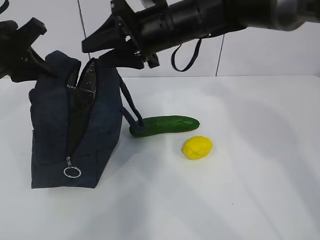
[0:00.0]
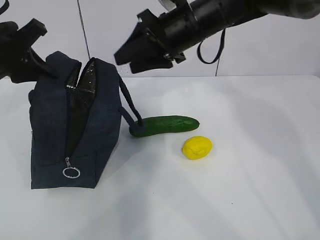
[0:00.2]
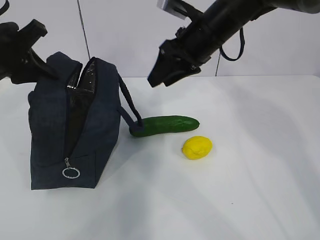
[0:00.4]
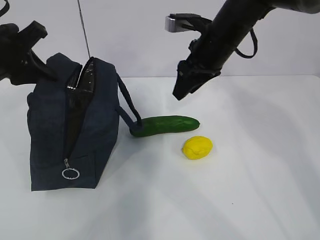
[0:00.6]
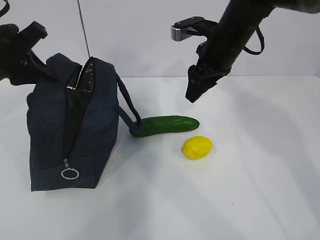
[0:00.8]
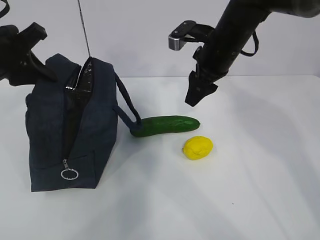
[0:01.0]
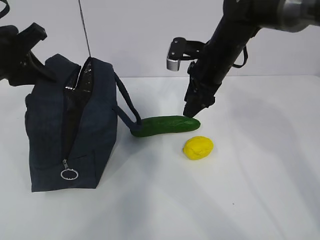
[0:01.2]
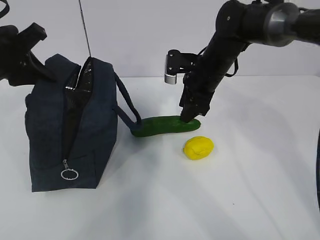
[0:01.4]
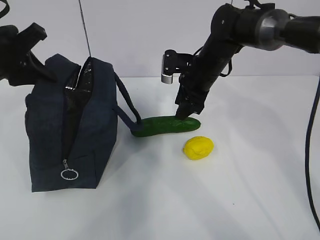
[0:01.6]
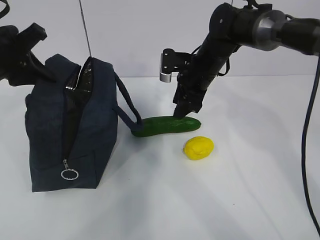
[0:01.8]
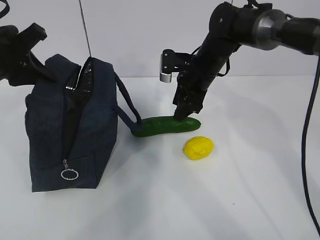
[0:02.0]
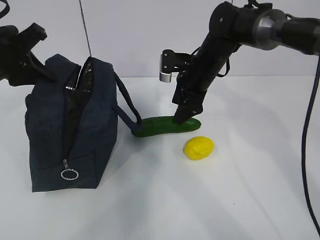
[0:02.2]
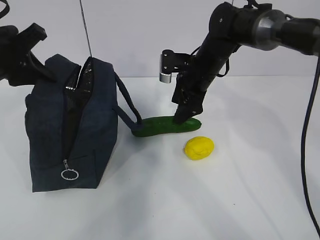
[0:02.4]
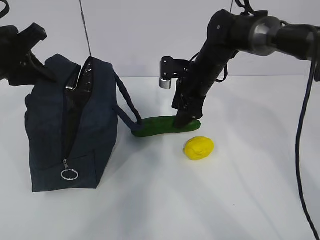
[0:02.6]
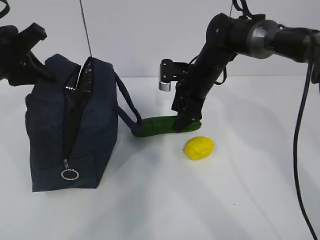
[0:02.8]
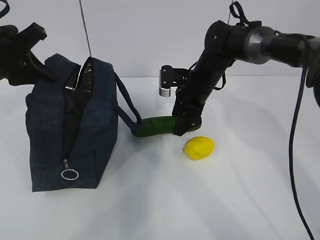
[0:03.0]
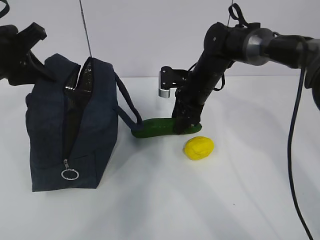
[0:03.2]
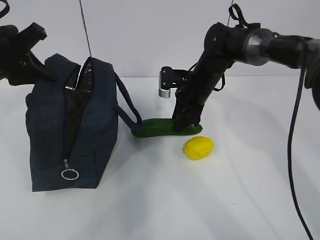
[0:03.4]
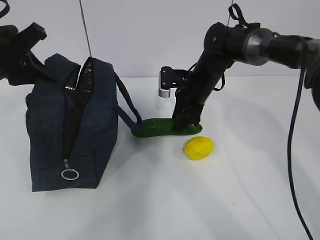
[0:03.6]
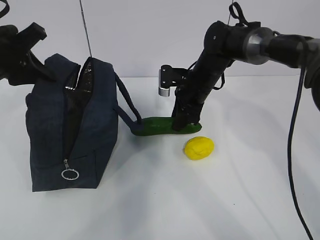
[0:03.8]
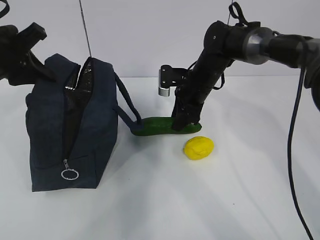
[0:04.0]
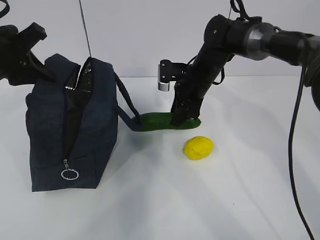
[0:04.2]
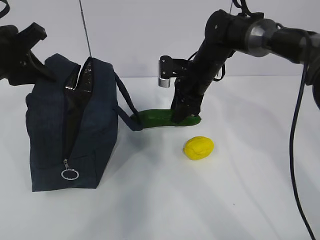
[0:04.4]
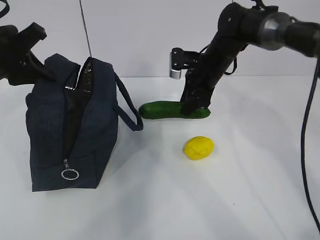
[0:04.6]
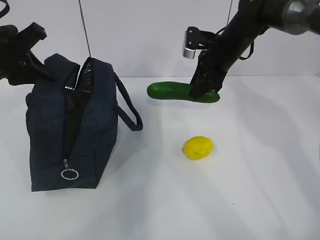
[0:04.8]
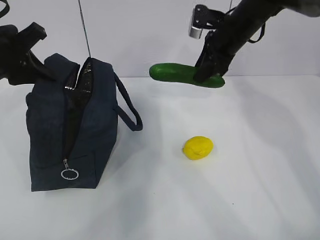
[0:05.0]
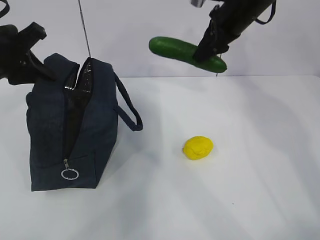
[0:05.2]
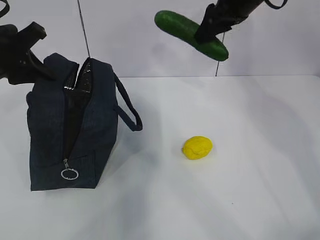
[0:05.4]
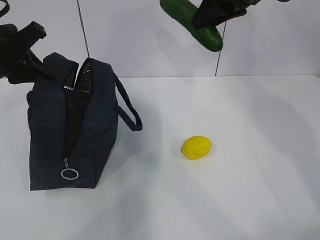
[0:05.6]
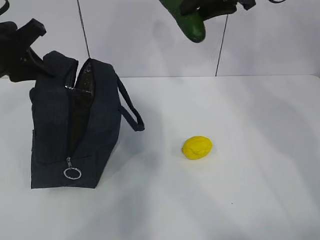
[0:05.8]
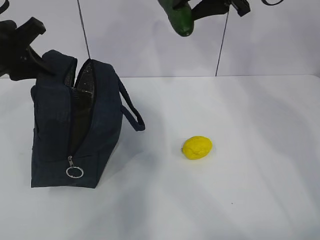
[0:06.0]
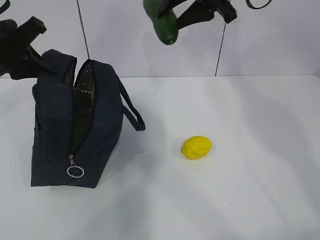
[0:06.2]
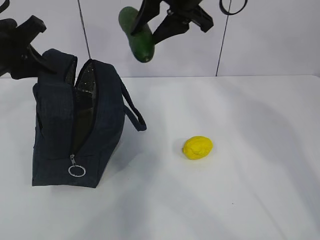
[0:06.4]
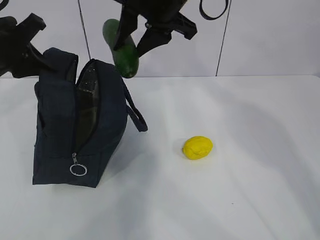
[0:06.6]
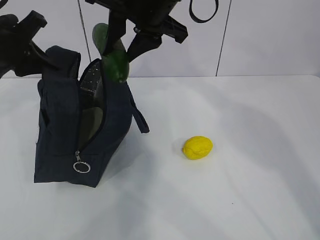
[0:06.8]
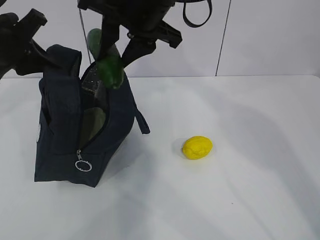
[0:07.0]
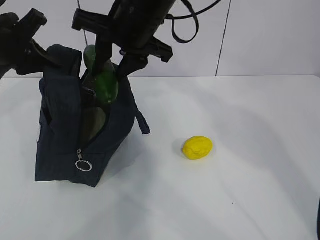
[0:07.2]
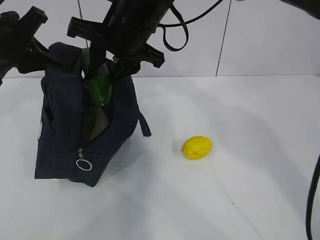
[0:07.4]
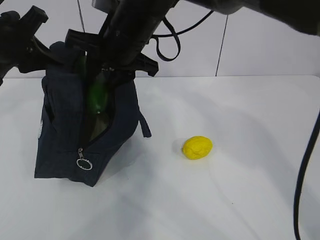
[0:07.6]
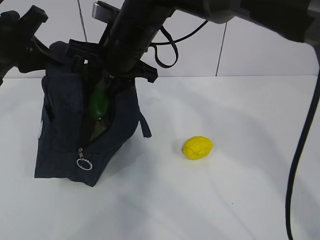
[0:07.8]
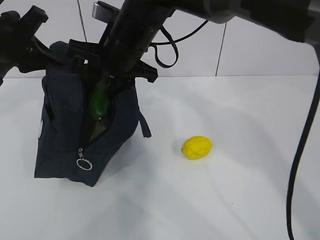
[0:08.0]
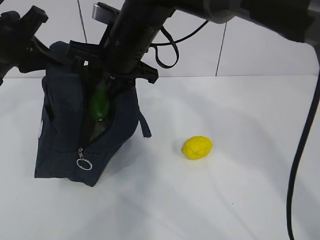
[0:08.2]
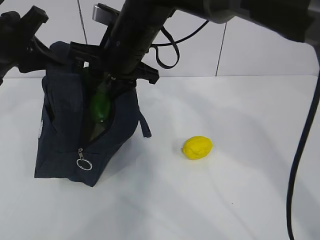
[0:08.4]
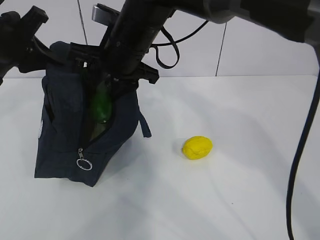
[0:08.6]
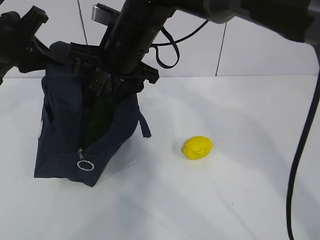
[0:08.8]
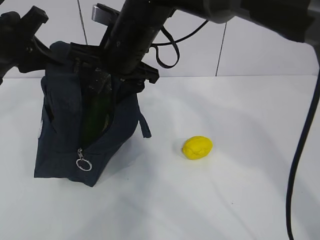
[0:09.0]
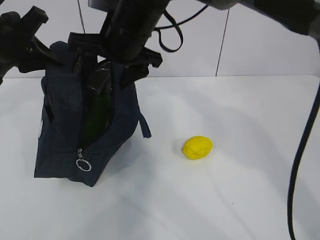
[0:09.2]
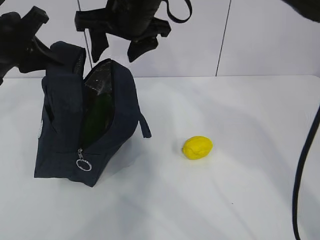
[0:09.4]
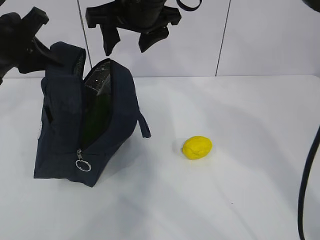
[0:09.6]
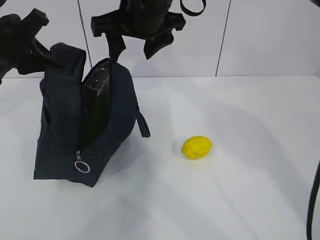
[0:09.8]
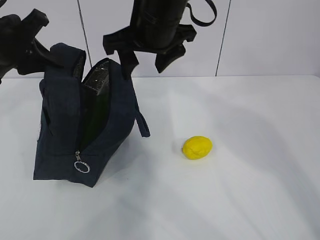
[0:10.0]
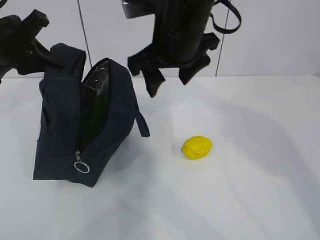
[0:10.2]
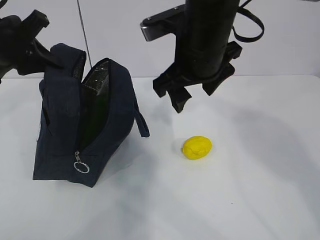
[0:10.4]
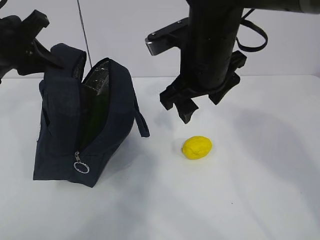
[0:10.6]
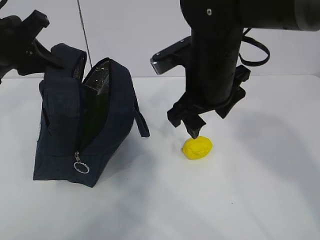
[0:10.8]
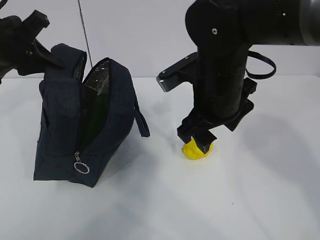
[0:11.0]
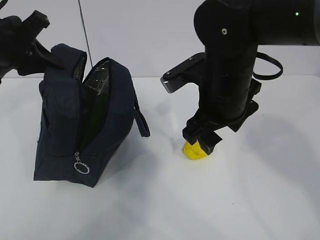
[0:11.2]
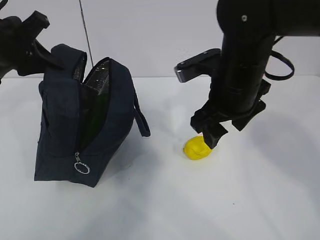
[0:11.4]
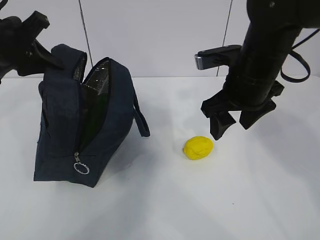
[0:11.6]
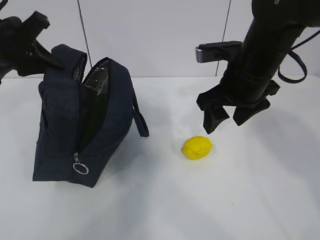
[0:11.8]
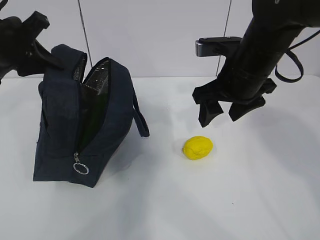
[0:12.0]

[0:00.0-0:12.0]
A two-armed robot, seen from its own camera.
Step, 0:00.0 to 0:03.4: Grasp the cucumber with the right gripper.
Step, 0:03.6 to 0:09.2: Place the cucumber into the package with the right gripper.
0:00.0 to 0:01.6: The right gripper heads downward, to the right and forward, covering some 15 cm.
0:01.6 to 0:03.0: The grippers make only small movements.
0:03.0 to 0:04.4: The right gripper closes its fingers.
0:04.4 to 0:06.0: The right gripper travels upward by roughly 20 cm.
0:06.0 to 0:07.6: The right gripper shifts about 20 cm to the left and downward.
0:07.6 to 0:09.0: The right gripper opens up.
0:09.0 to 0:10.4: The right gripper goes about 10 cm to the right and backward.
0:10.4 to 0:12.0: The right gripper is displaced to the right by roughly 10 cm.

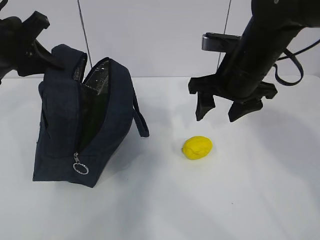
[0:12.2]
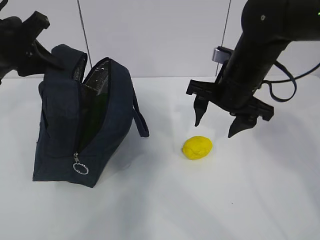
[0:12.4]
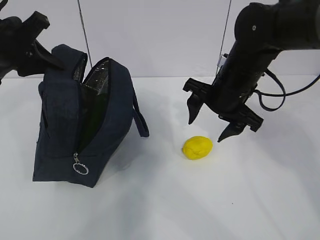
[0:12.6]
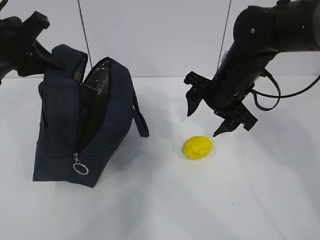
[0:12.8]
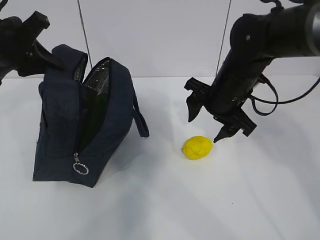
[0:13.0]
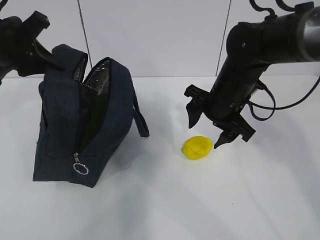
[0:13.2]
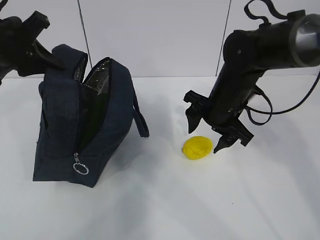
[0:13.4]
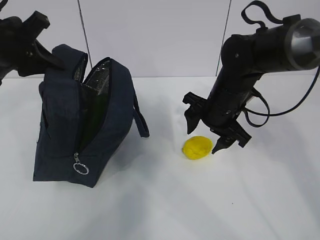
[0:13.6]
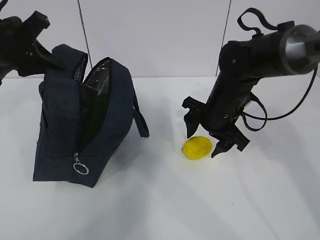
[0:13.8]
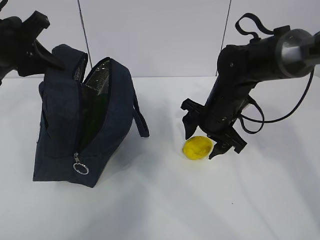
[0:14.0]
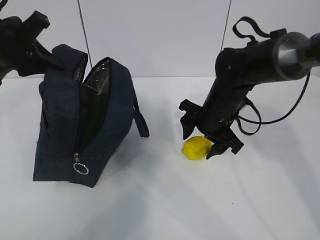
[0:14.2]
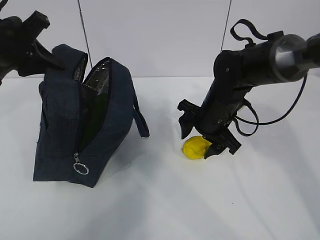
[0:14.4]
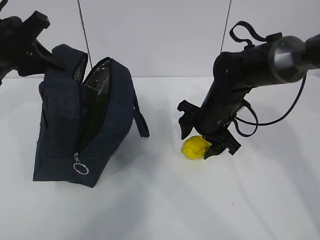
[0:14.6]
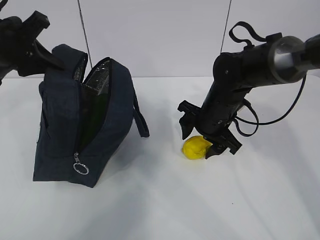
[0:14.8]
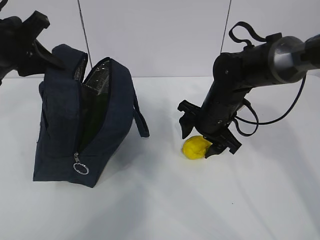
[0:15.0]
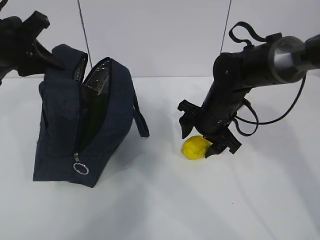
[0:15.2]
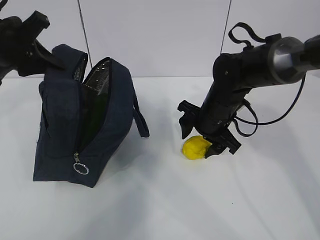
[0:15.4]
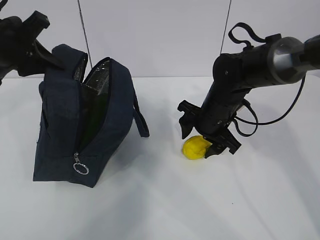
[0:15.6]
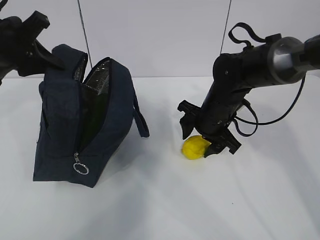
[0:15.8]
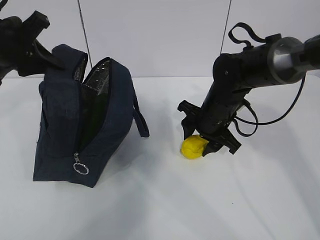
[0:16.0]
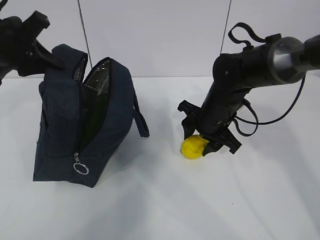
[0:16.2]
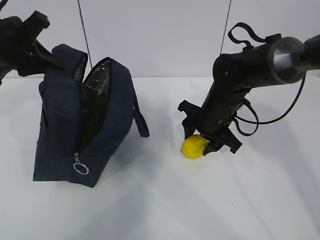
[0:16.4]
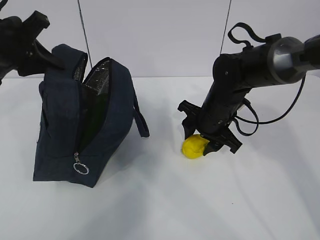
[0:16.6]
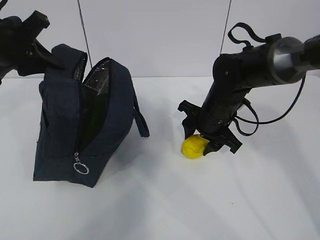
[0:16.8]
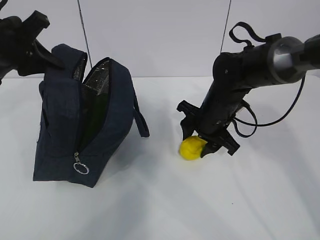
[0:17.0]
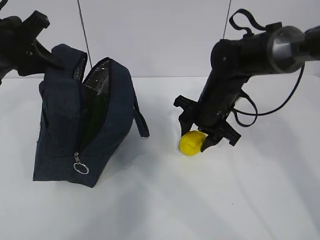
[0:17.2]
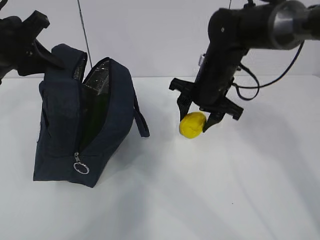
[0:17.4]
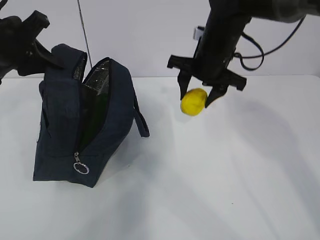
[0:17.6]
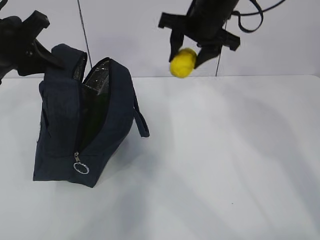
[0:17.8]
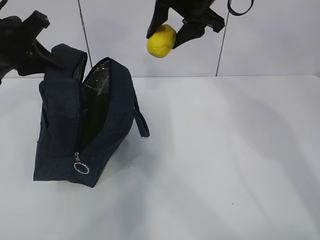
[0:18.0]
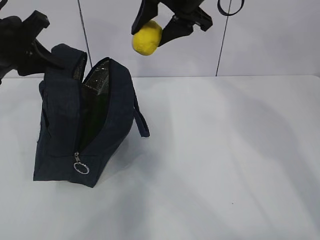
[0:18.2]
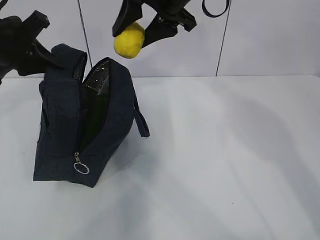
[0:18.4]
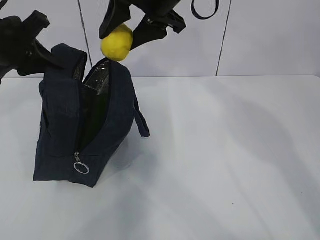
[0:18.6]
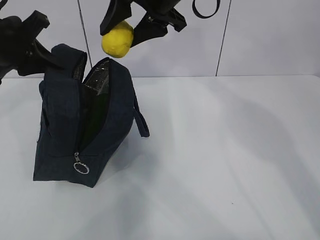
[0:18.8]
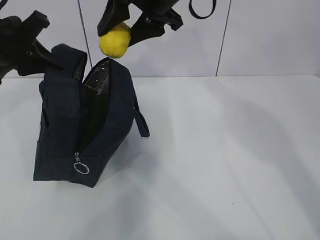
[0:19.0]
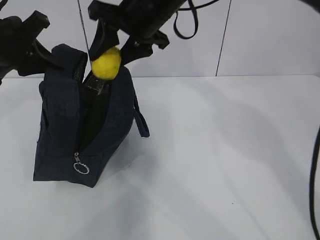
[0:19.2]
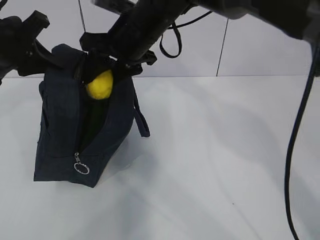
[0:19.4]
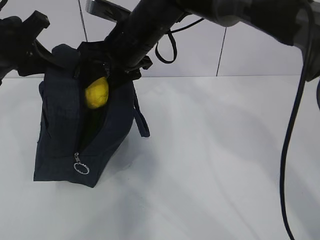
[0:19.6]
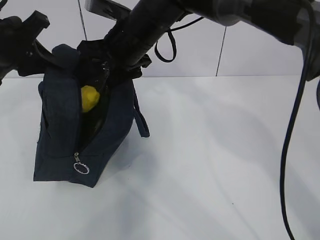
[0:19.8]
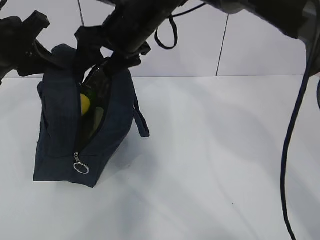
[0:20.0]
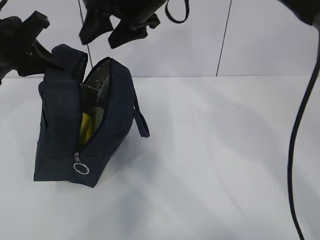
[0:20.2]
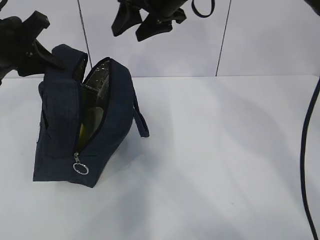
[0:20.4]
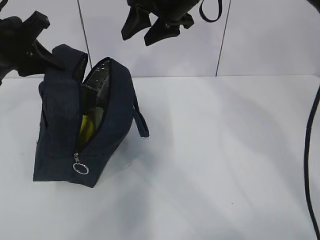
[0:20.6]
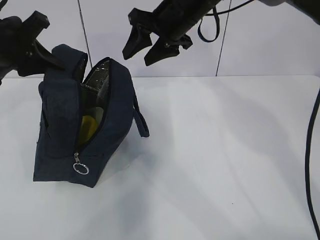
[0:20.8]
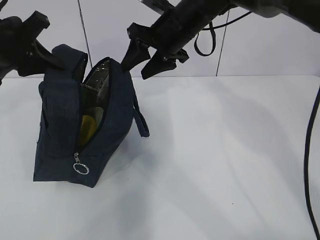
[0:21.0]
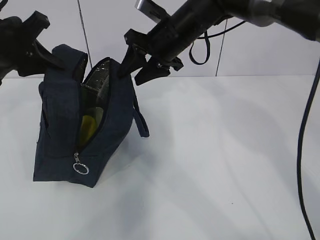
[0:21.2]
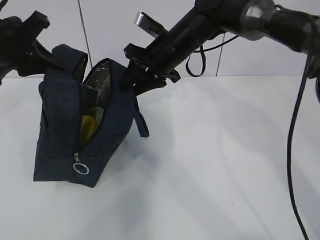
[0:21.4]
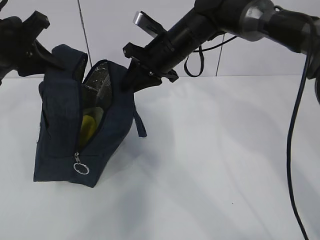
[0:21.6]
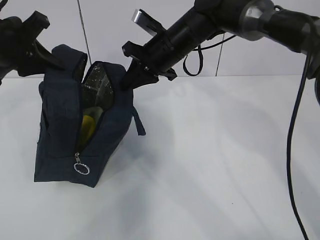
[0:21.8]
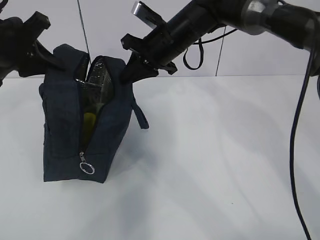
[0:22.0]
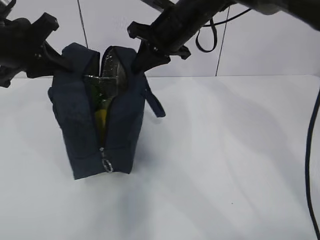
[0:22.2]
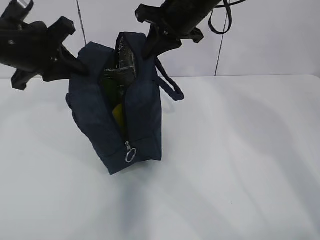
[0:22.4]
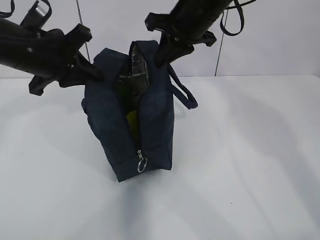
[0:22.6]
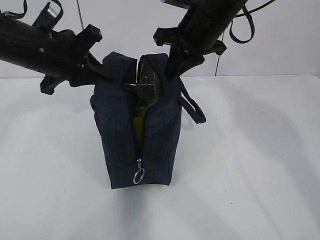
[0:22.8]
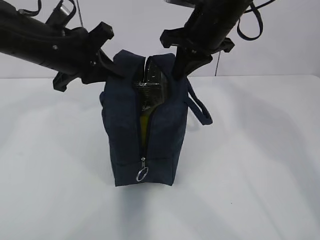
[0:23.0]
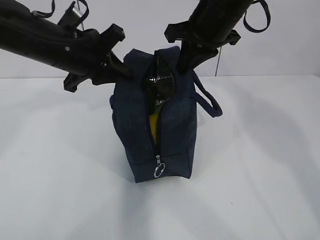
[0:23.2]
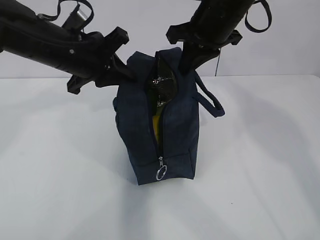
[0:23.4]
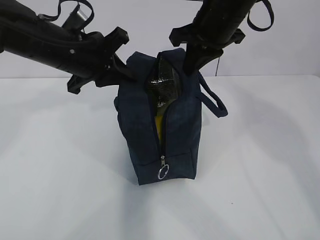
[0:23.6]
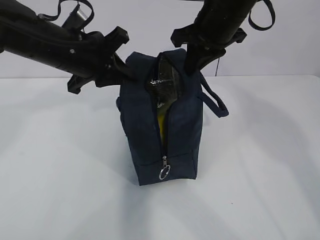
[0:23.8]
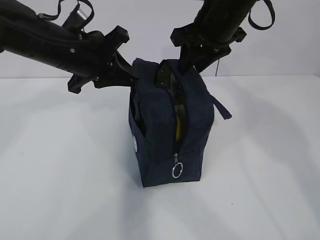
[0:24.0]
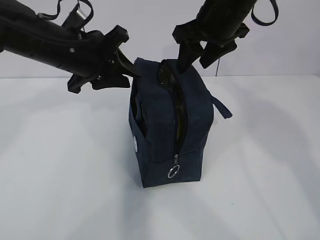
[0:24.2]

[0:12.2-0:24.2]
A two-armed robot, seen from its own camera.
Step, 0:12.2 to 0:16.2: Grasp the lemon with the right gripper.
Step, 0:16.4 to 0:20.0: Place the lemon into the package with the right gripper.
0:12.2 to 0:13.8: The right gripper shifts approximately 10 cm downward.
0:13.8 to 0:15.2: The grippers make only small movements.
0:15.2 to 0:16.6: The two grippers keep their place.
0:16.6 to 0:18.2: The right gripper heads upward, covering about 20 cm.
0:18.2 to 0:19.8: The right gripper shifts approximately 10 cm to the left and downward.
0:19.8 to 0:21.2: The right gripper moves to the right, roughly 5 cm.
0:21.2 to 0:22.6: The left gripper travels to the right by about 5 cm; the right gripper goes some 5 cm upward, and closes.
0:22.6 to 0:24.2: The right gripper opens. The left gripper shifts roughly 5 cm to the right, and opens up.
